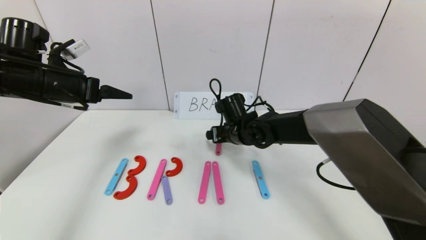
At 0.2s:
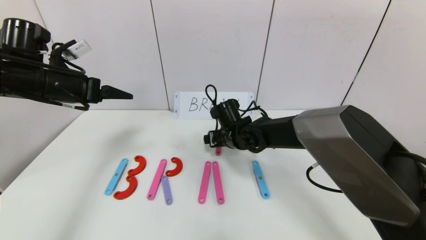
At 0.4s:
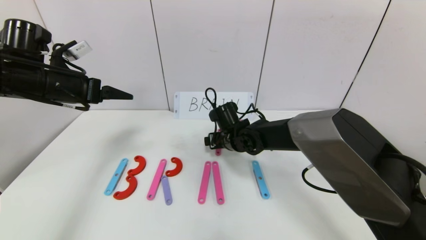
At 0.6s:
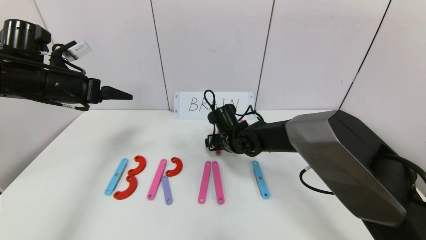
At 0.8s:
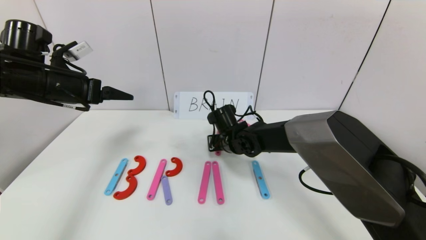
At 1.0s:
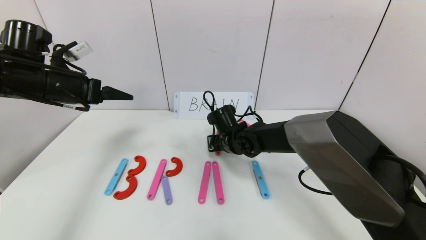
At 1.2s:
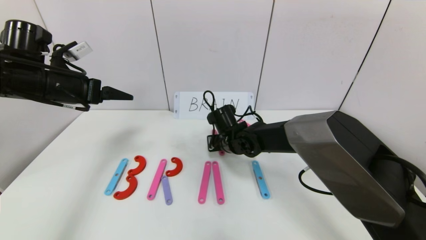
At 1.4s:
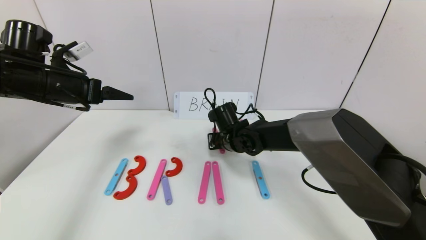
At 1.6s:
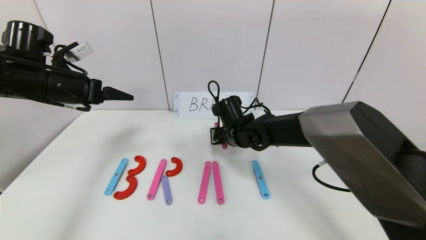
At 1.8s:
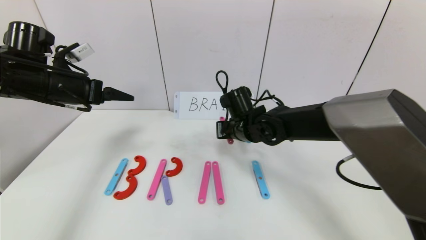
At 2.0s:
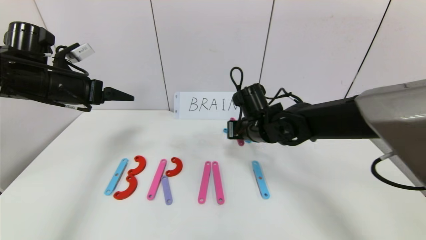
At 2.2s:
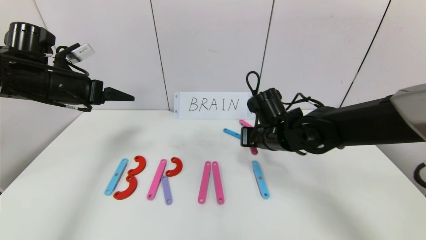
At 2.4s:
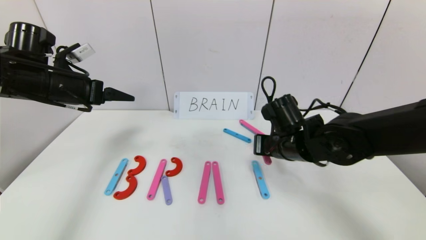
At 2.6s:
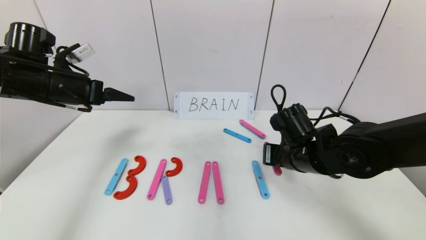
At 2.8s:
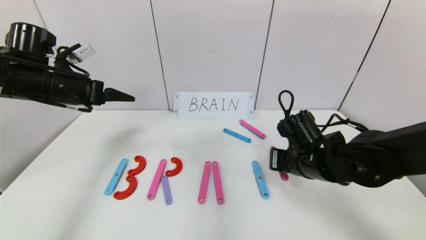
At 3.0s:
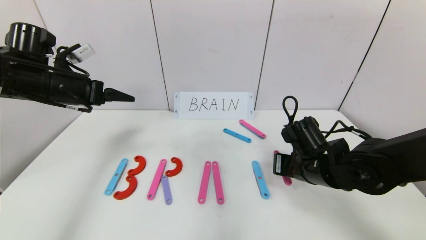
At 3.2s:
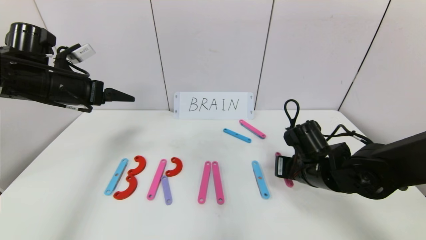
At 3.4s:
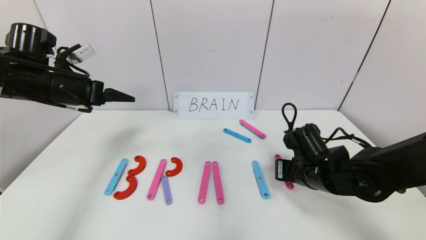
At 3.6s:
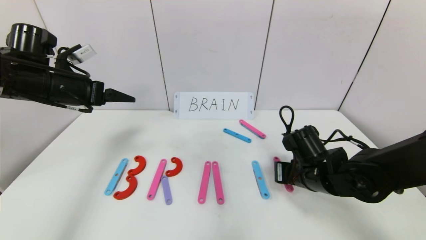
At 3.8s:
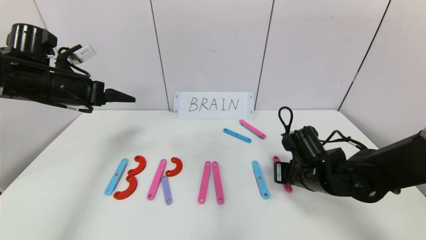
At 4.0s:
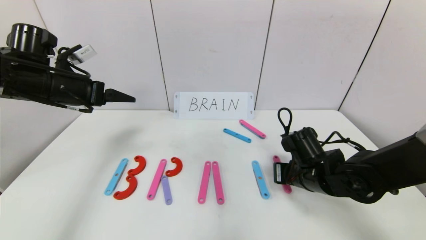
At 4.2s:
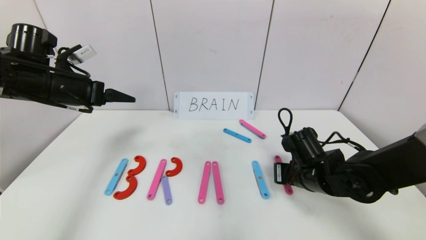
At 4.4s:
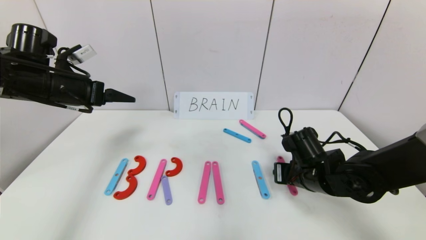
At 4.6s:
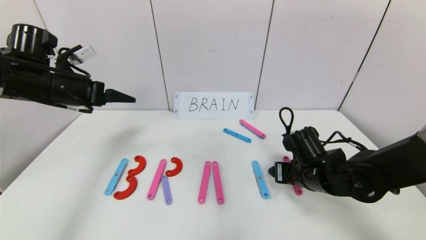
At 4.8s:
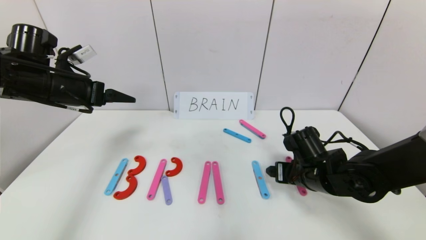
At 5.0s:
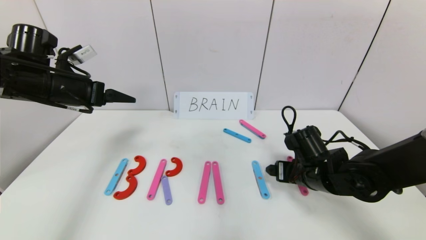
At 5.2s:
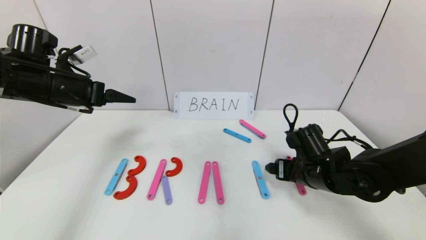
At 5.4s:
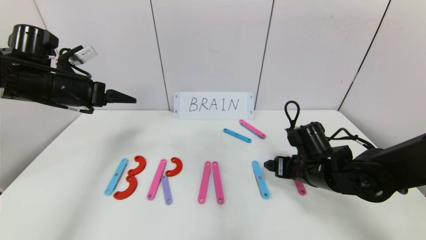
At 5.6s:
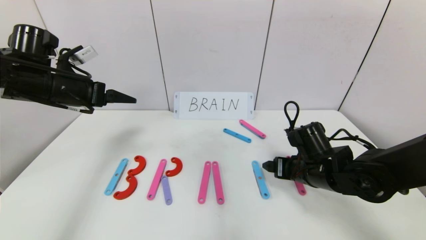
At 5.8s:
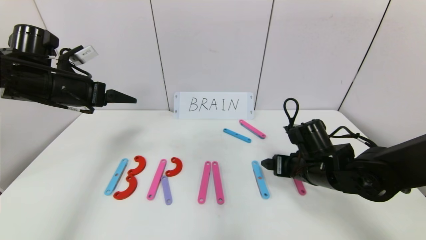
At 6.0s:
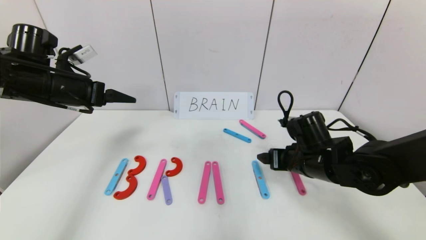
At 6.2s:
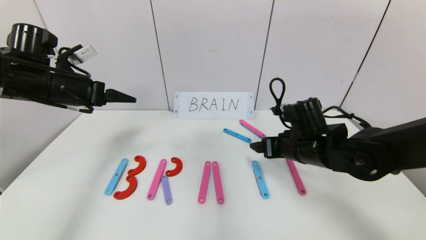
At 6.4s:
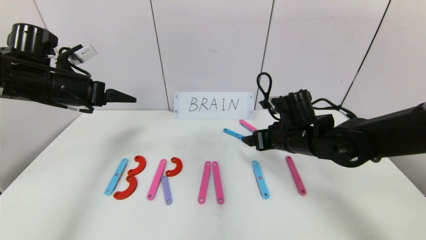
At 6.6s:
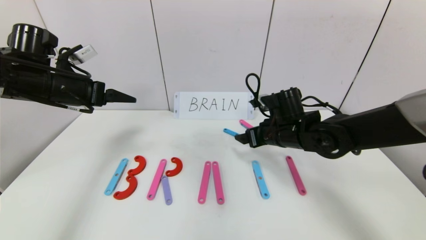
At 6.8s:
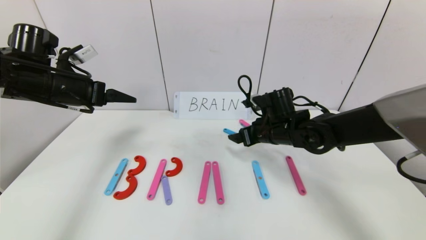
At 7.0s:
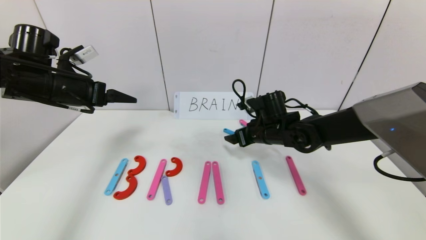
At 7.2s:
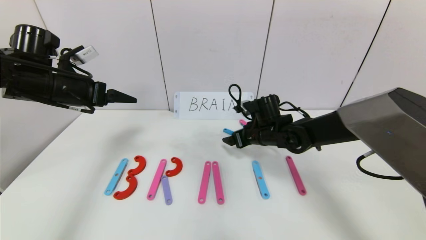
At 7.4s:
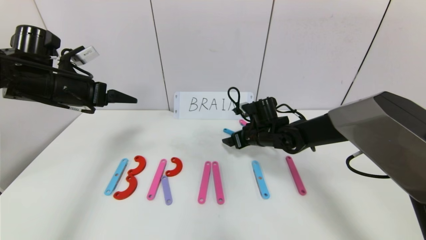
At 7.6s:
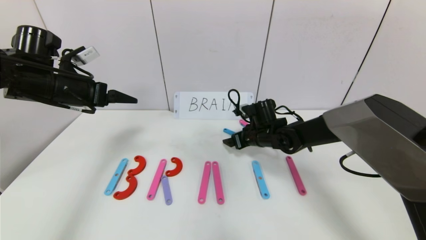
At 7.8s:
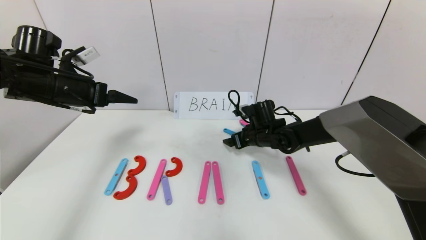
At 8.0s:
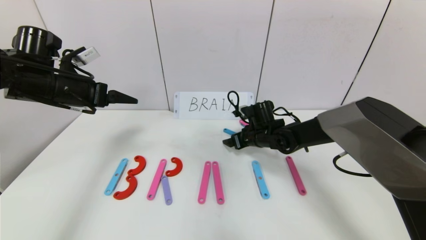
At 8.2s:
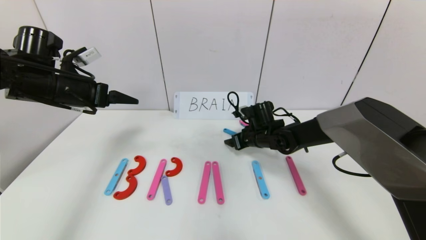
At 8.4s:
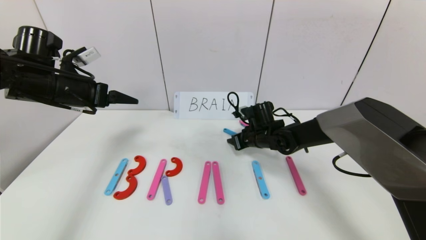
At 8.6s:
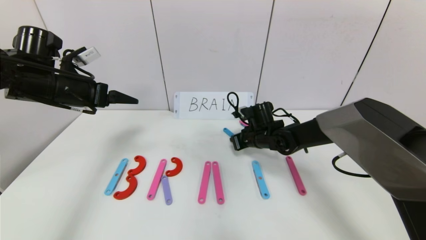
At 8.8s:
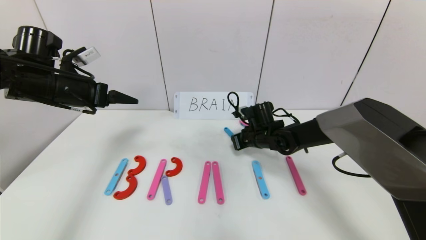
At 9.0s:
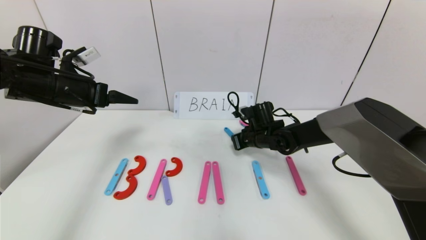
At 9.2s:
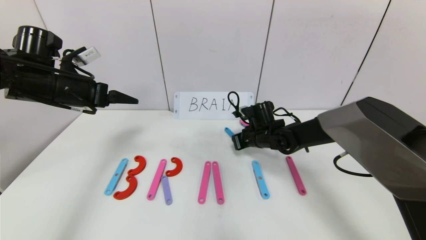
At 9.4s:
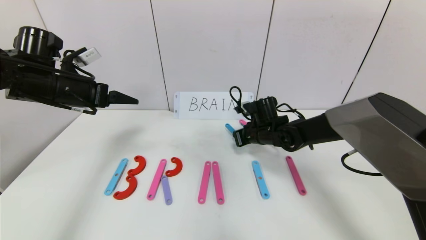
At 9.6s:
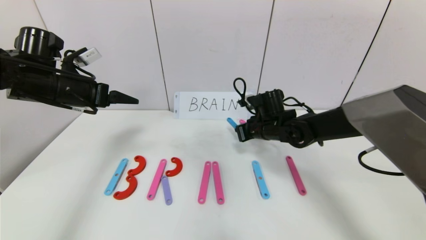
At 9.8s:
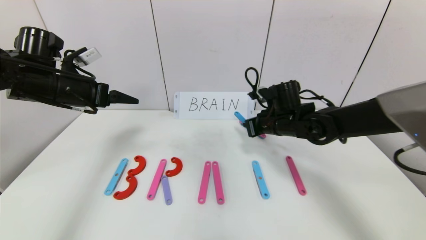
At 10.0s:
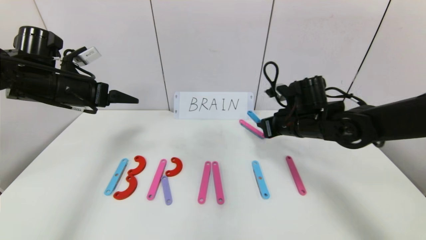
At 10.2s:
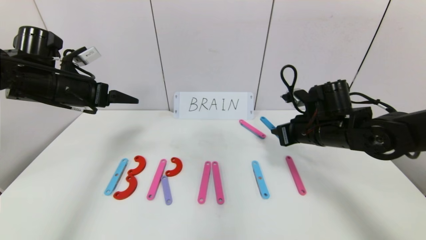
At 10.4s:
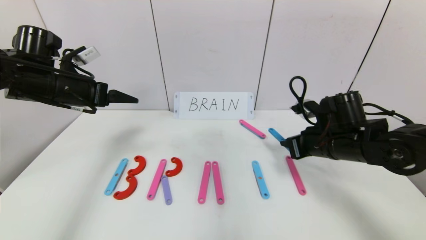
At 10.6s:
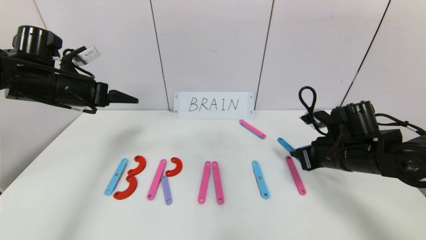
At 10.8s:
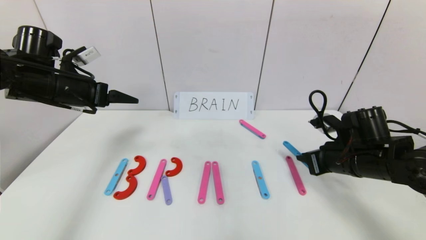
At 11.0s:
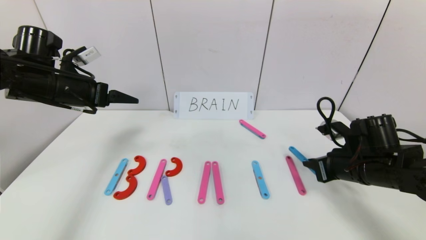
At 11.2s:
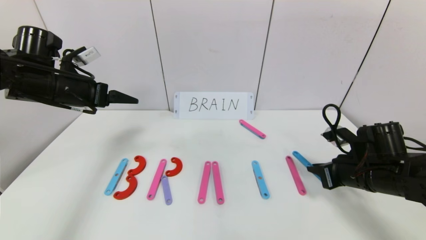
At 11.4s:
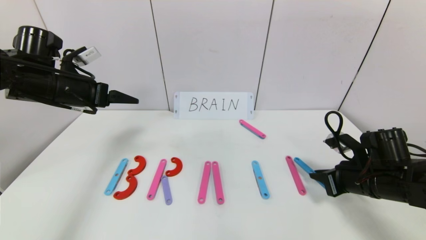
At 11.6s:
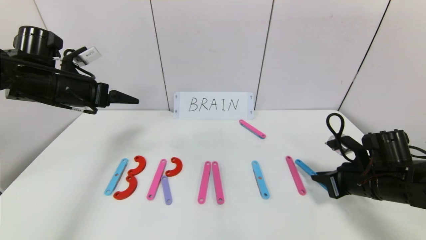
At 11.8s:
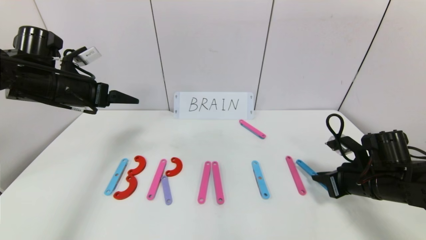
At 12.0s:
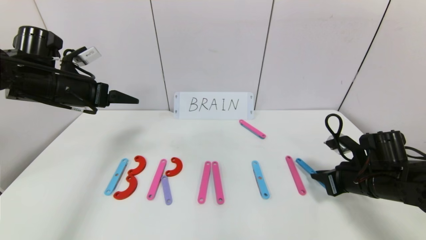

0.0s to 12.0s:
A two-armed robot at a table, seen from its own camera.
Task of the whole recording: rearrange the word baai as brain.
0.0s to 1.6s: The right gripper closes its fingers.
1.6s to 3.0s: The right gripper is displaced to the right and backward by some 20 cm.
3.0s to 4.4s: The right gripper opens.
4.4s to 6.0s: The right gripper opens.
6.0s to 7.6s: The right gripper is displaced forward and to the left by roughly 15 cm.
7.6s to 9.0s: The right gripper closes its fingers.
9.0s to 10.4s: The right gripper goes roughly 20 cm backward, to the right and upward.
10.4s to 12.0s: The right gripper moves to the right and downward, approximately 10 cm.

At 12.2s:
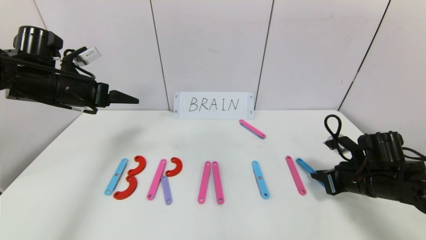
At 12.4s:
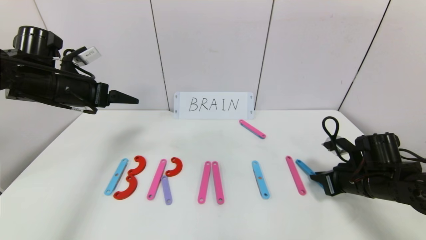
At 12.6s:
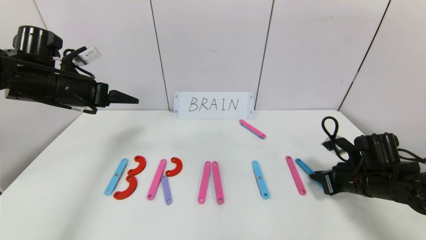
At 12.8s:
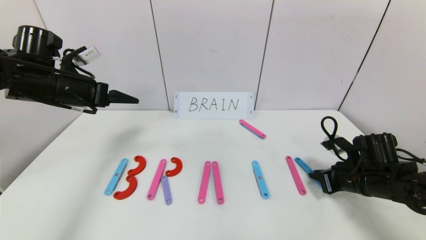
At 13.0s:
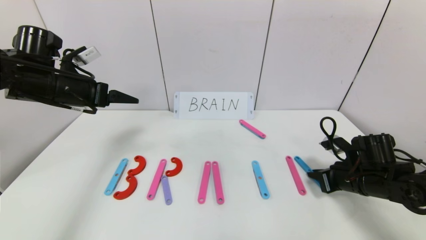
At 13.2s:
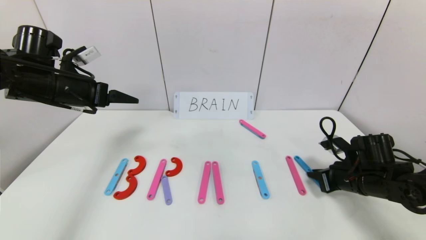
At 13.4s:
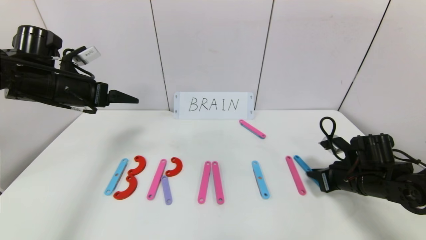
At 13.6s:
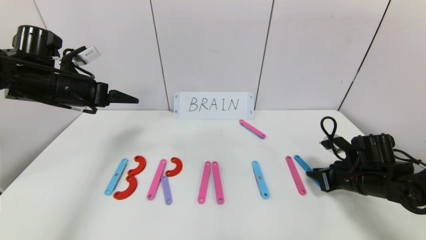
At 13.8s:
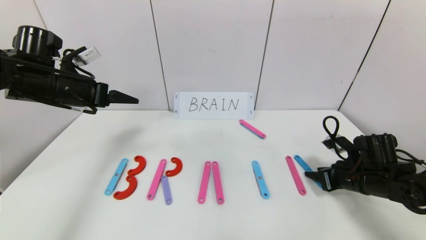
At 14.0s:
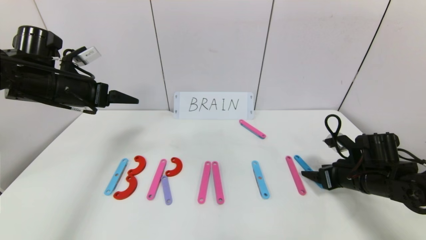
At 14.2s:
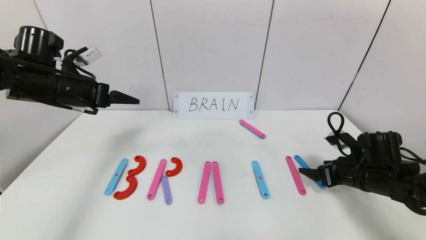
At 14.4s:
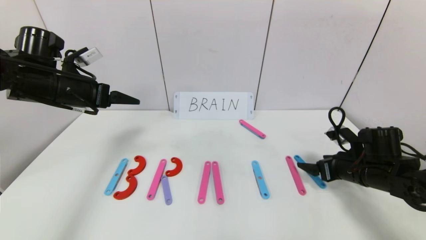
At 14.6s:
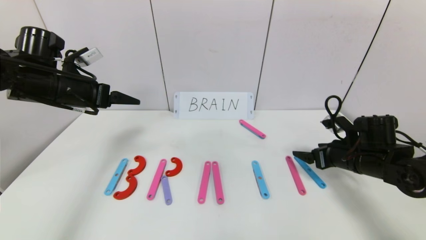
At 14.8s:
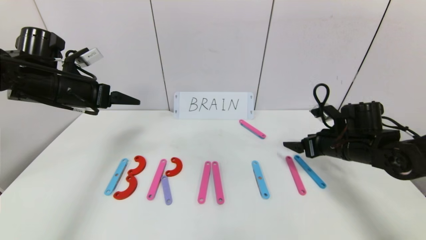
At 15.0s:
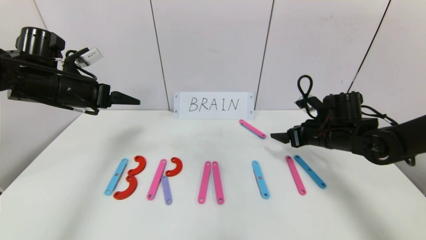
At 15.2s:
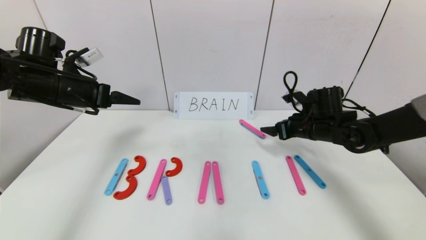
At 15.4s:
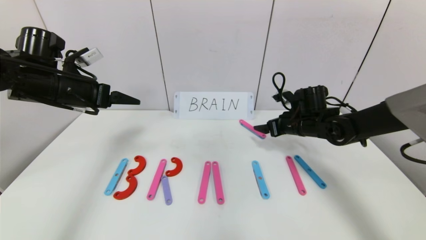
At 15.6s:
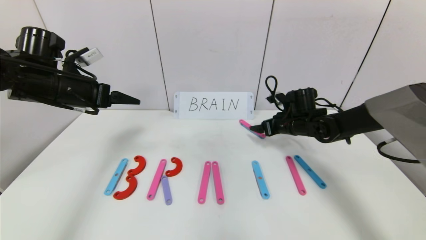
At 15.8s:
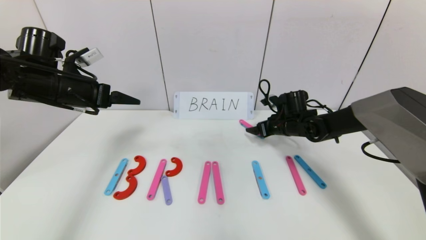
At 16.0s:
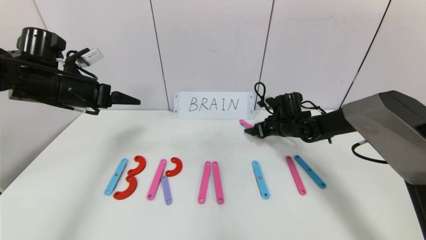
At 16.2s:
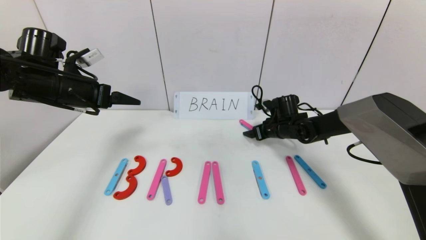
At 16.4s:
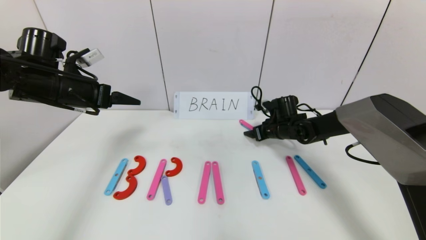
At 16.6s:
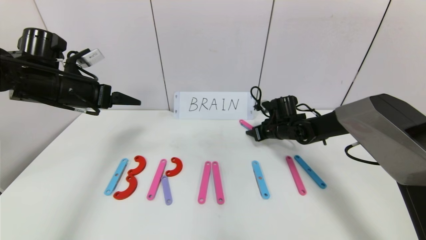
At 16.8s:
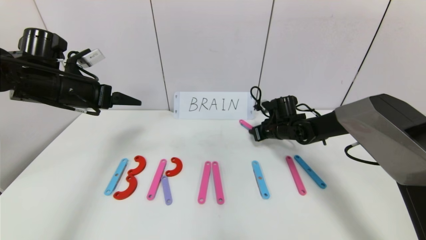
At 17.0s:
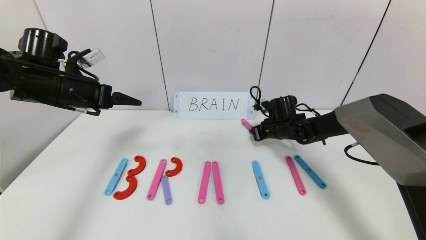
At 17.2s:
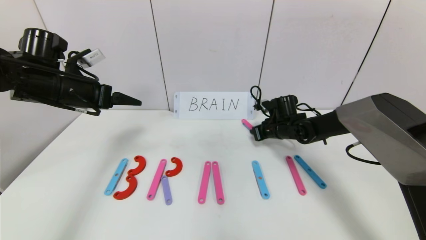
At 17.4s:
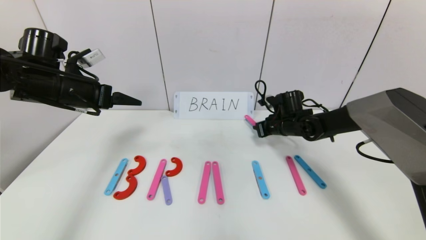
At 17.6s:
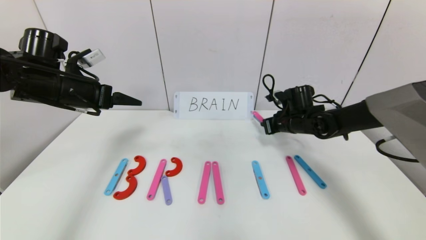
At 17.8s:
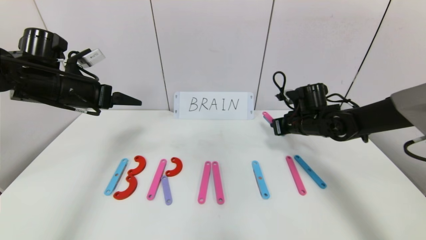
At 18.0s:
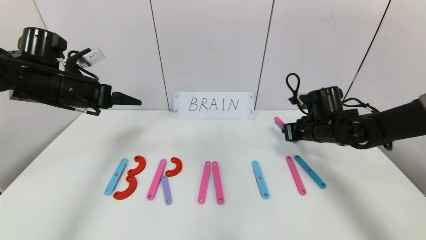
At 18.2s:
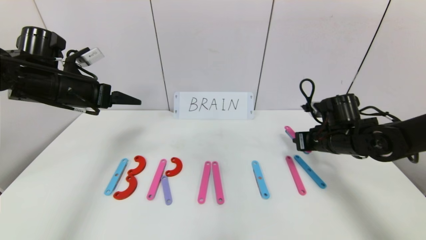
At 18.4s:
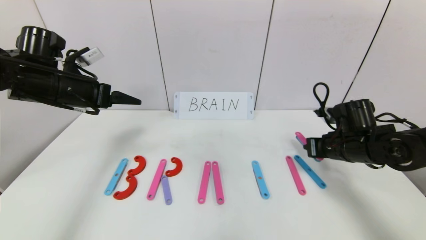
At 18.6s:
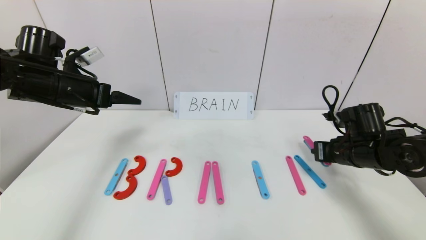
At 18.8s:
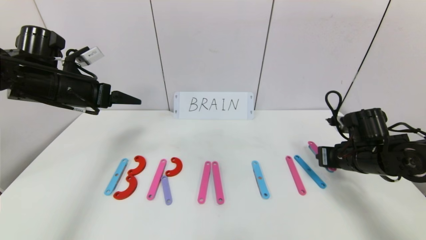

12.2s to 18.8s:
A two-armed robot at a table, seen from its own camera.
Task of the whole recording: rearrange the word baai as brain.
12.2s to 13.8s: The right gripper opens its fingers.
13.8s to 15.4s: The right gripper moves forward, to the left and upward, some 15 cm, and opens up.
15.4s to 17.2s: The right gripper moves approximately 5 cm, and closes up.
17.2s to 18.8s: The right gripper moves backward and to the right, roughly 20 cm.
